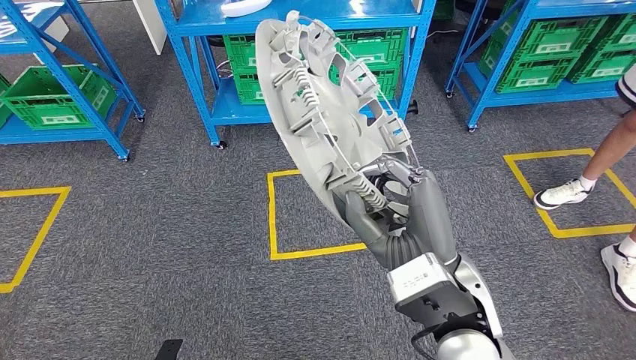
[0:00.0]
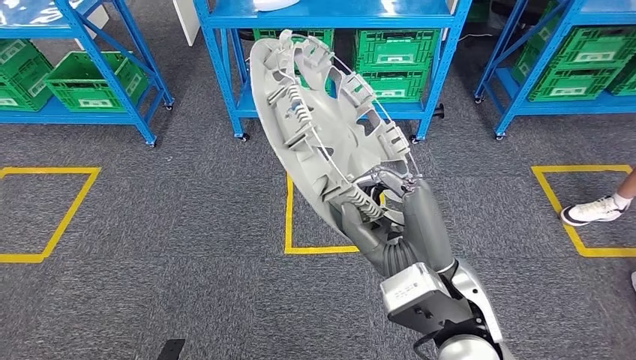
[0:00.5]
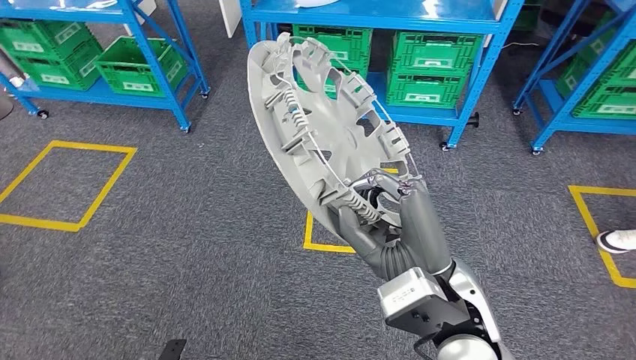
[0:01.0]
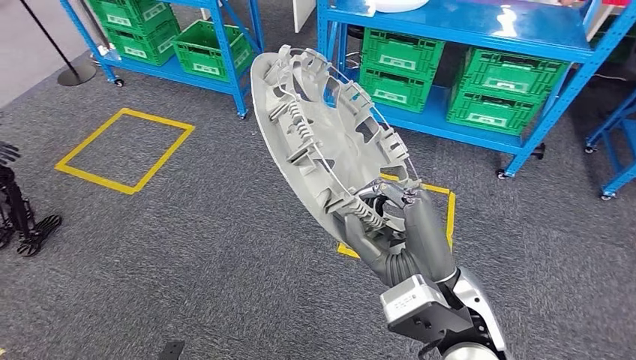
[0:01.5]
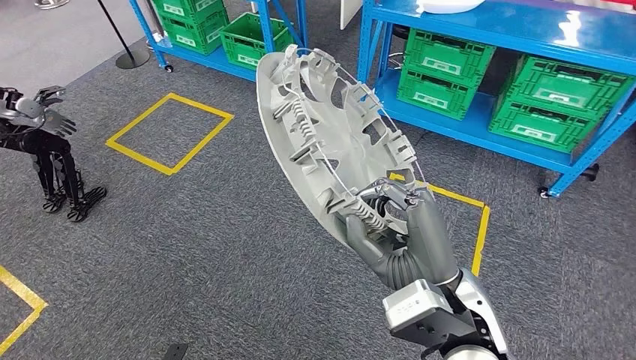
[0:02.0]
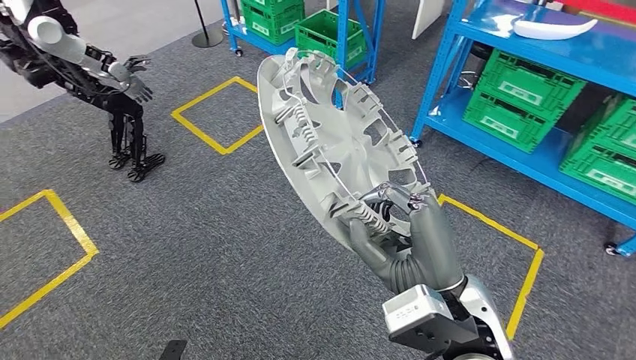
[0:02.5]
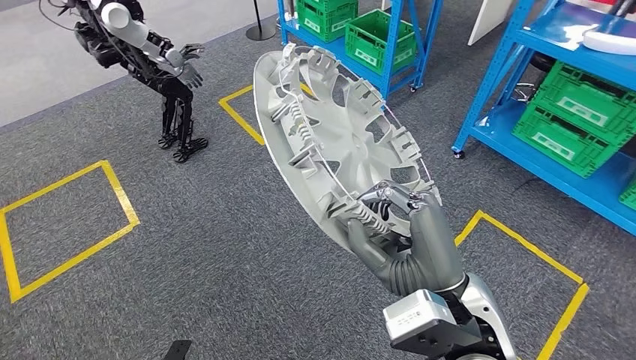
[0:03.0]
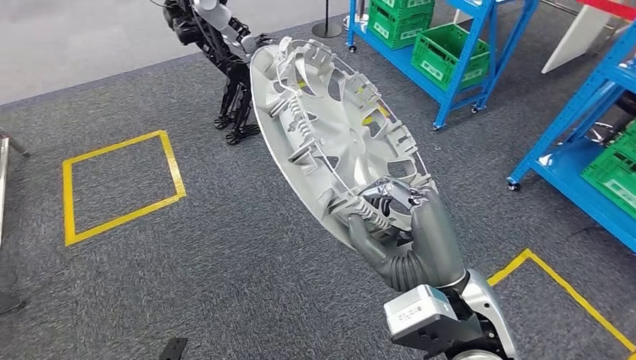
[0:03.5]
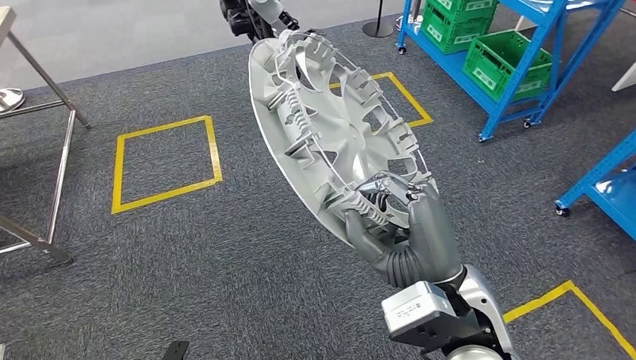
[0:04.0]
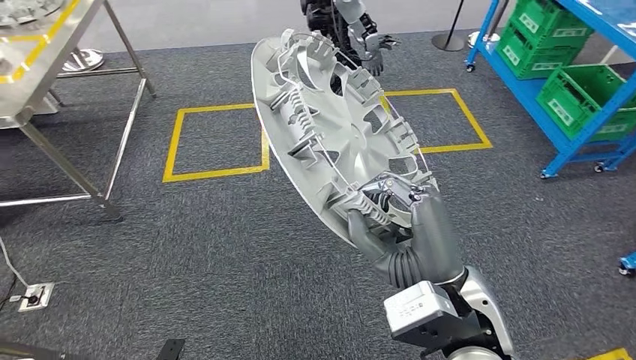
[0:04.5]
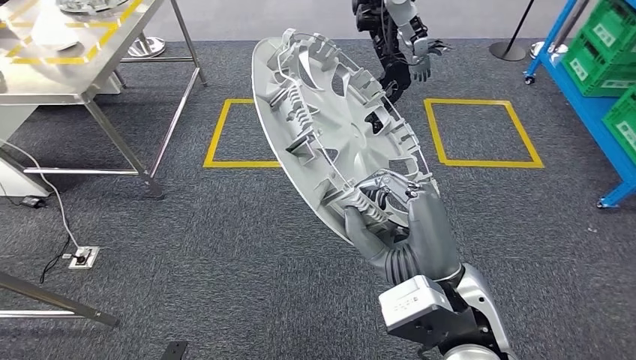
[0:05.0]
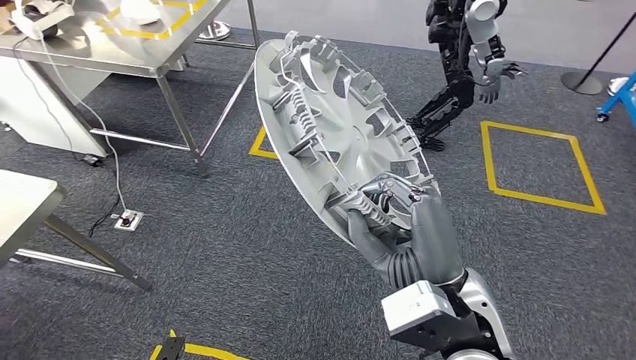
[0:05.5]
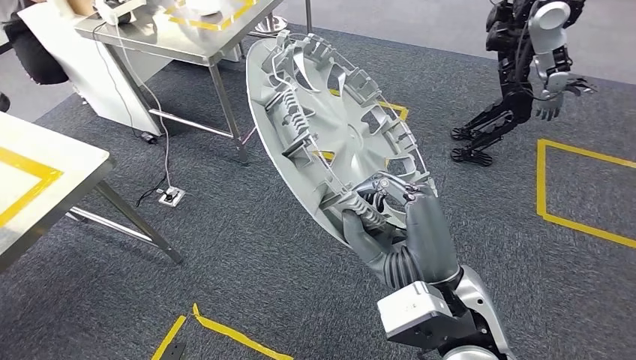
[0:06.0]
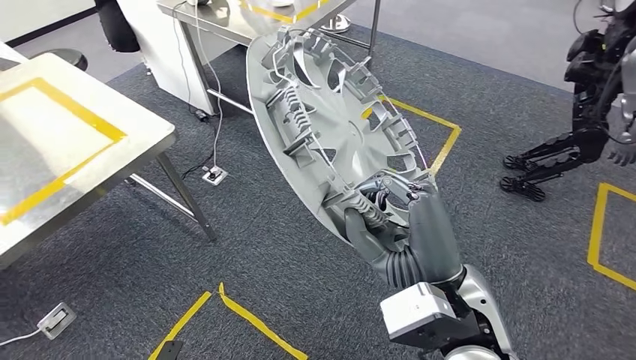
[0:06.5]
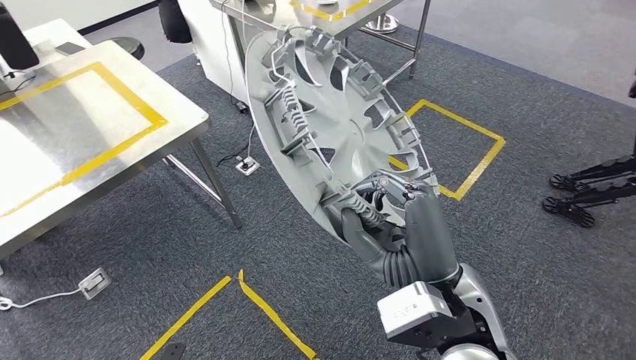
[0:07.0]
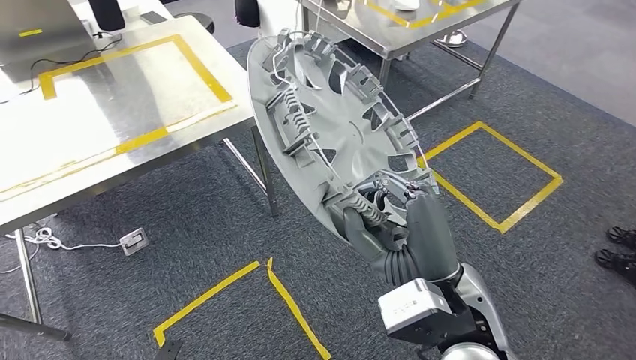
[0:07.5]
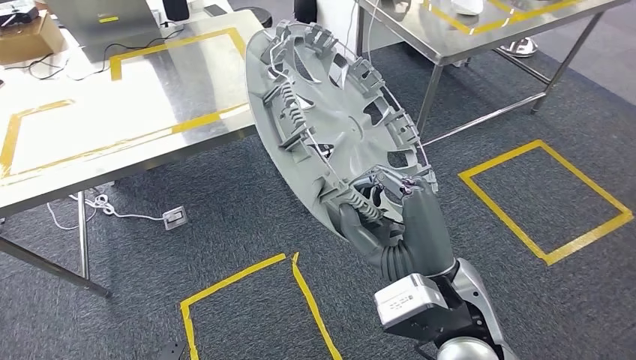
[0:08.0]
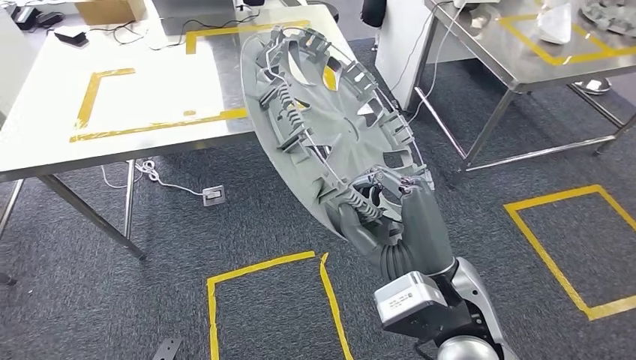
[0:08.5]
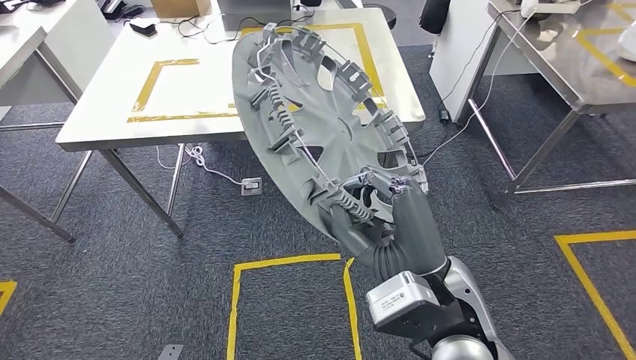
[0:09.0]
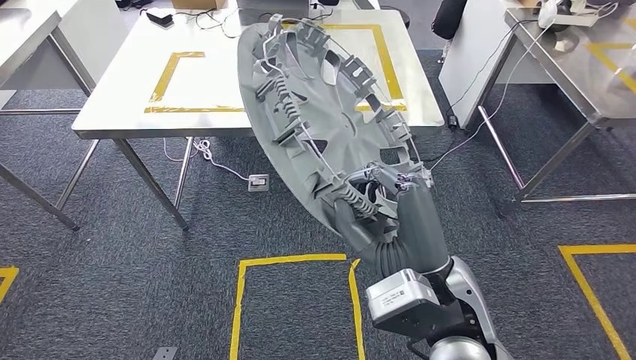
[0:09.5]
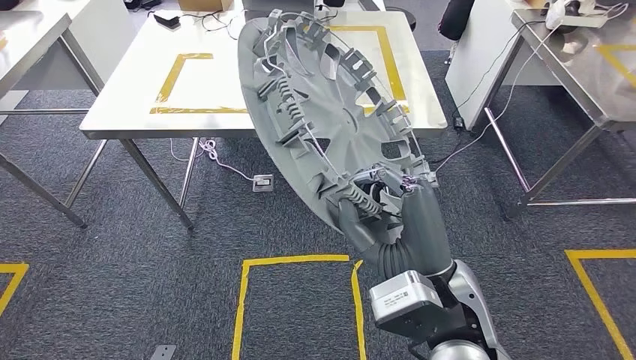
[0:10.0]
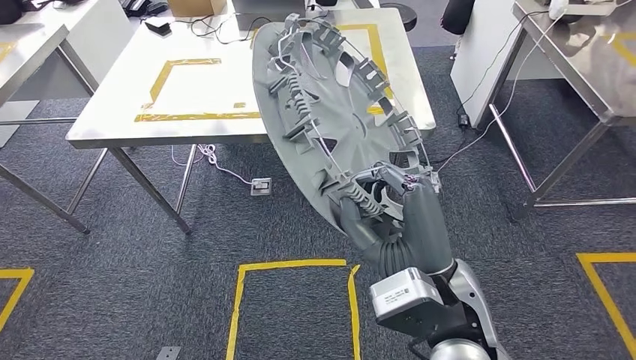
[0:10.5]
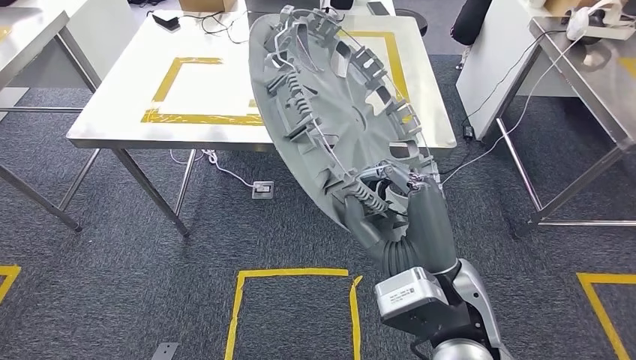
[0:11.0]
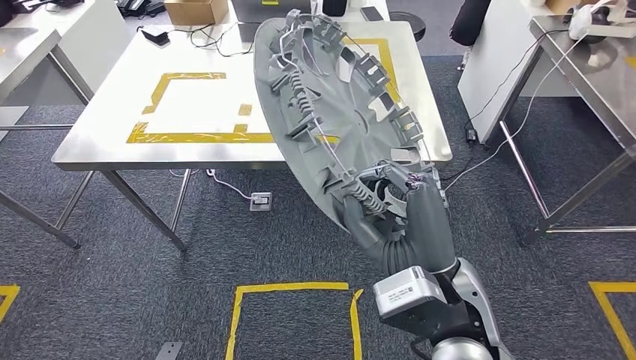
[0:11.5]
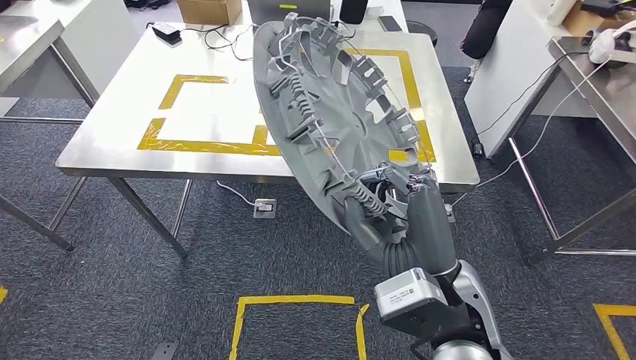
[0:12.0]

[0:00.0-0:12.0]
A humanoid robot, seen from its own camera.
Step, 0:00.0 to 0:11.5: Move the large material to the front of the workbench.

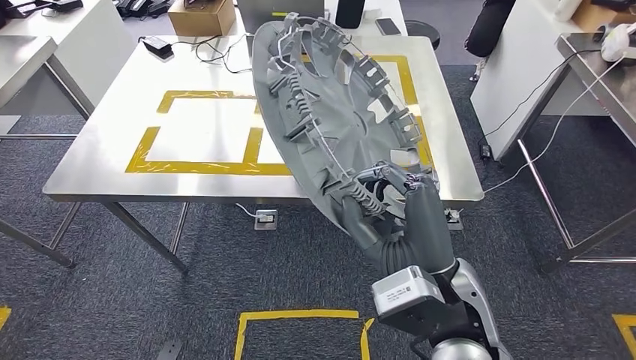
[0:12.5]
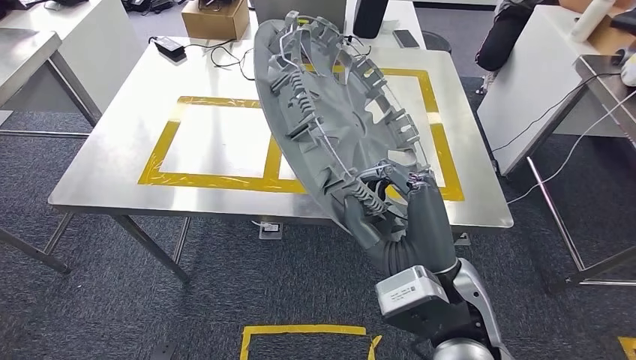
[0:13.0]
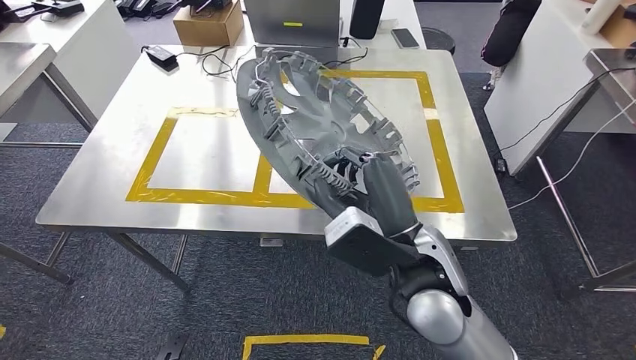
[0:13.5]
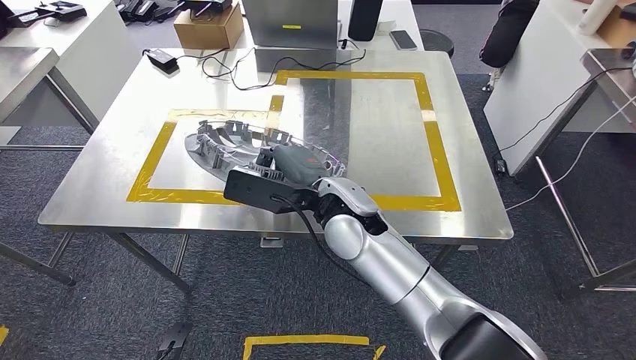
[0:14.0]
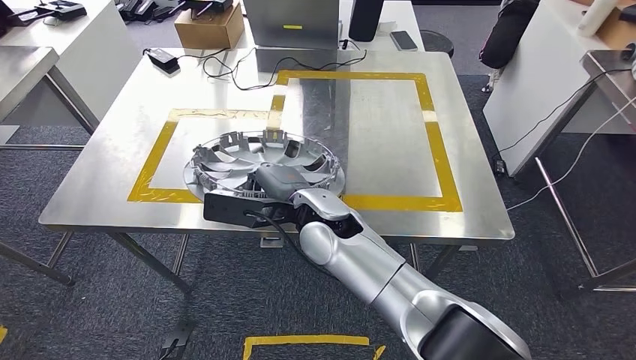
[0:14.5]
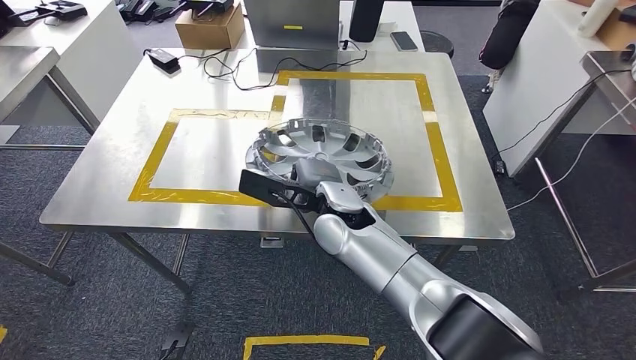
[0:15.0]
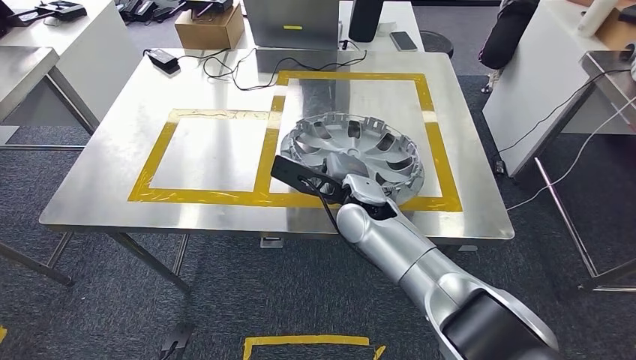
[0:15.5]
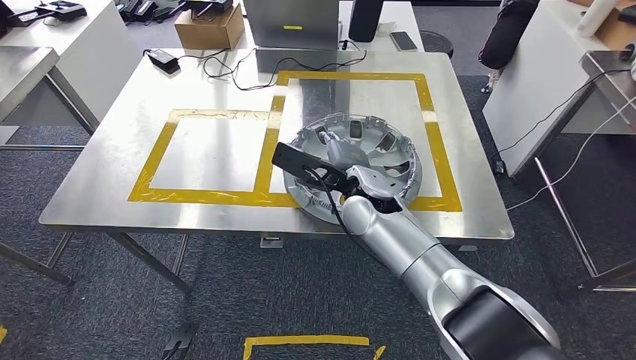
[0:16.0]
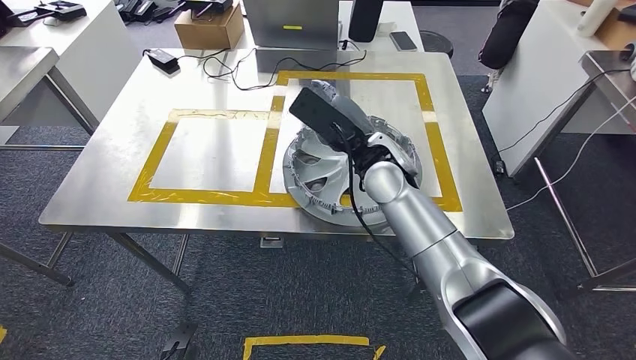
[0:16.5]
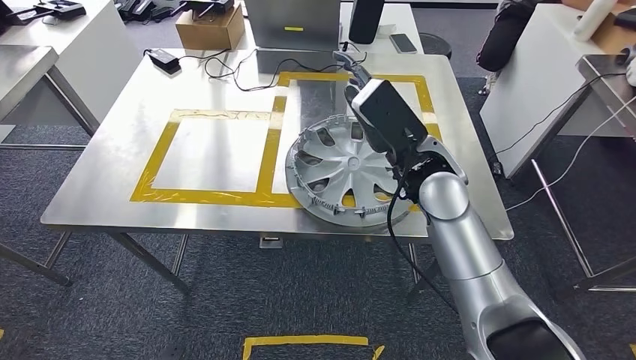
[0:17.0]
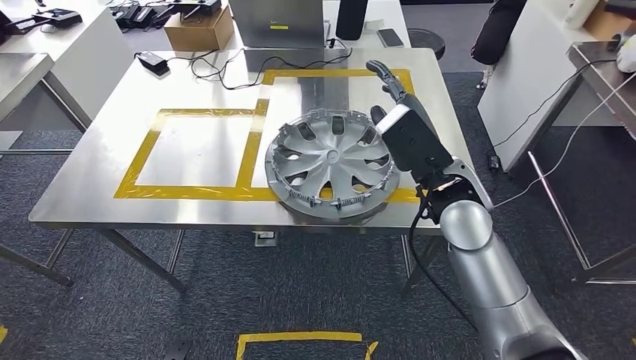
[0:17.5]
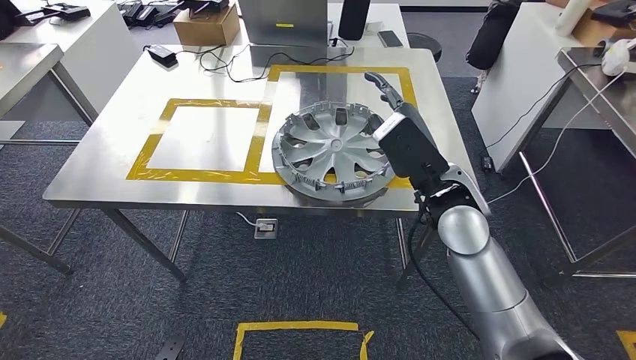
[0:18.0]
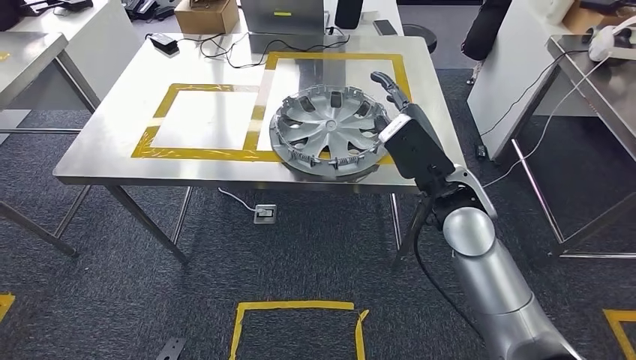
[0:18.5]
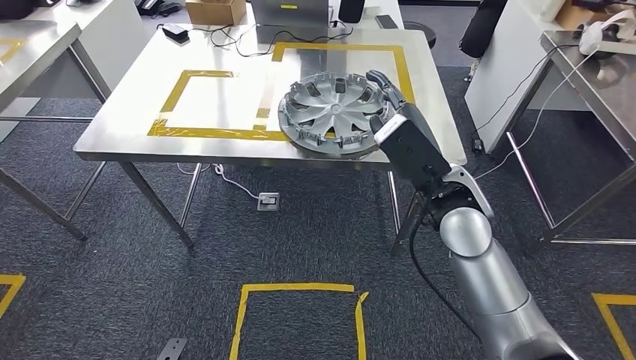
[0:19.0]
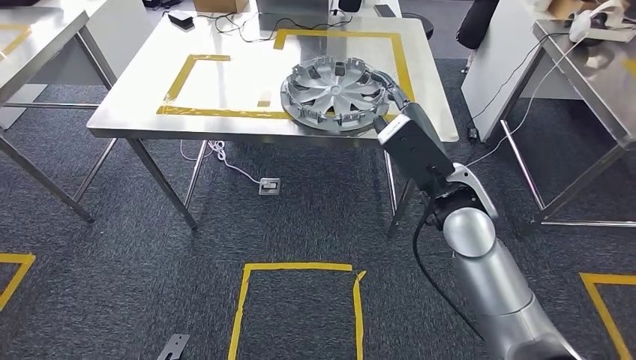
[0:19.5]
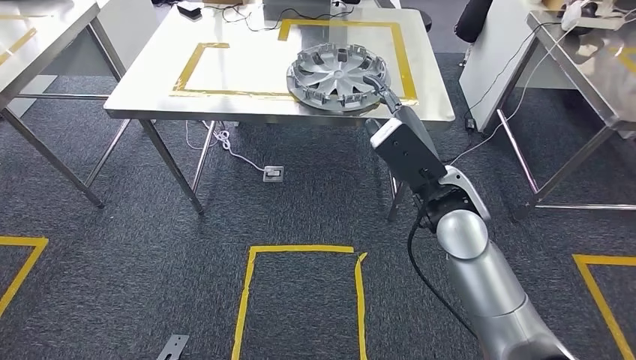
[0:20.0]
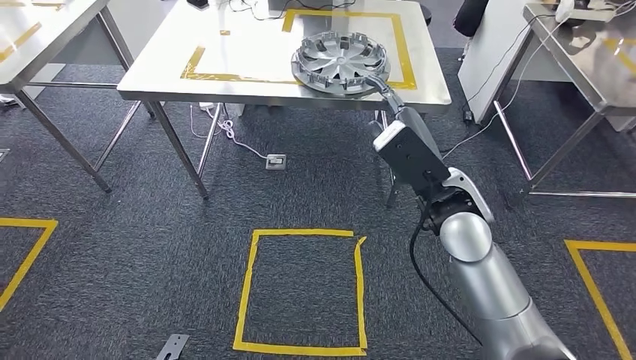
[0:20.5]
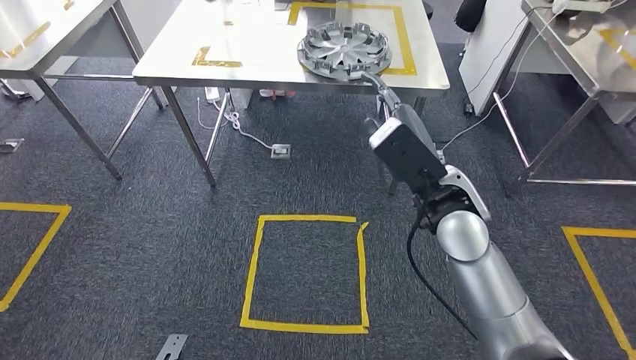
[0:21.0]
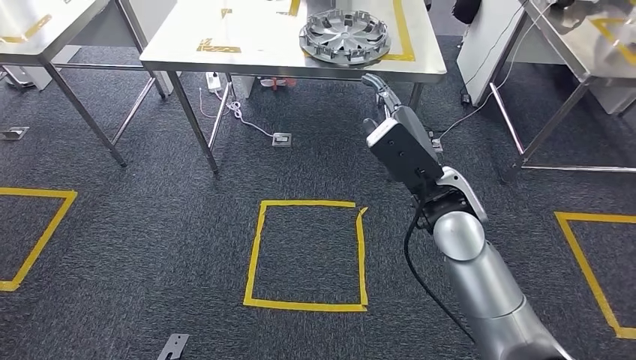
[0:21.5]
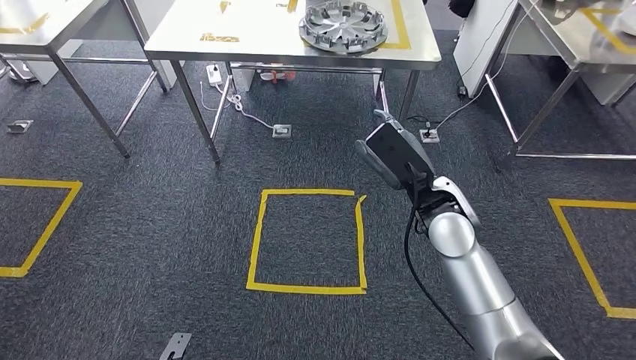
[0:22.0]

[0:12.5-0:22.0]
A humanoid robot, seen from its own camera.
Step, 0:12.5 to 0:17.5: Insert the large material into the corresponding hole on the workbench.
Step, 0:18.5 to 0:22.0: Move to the initial position of the shelf.
0:14.5 to 0:16.5: The right hand goes some 10 cm to the right and forward.
